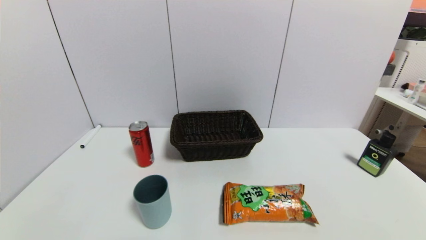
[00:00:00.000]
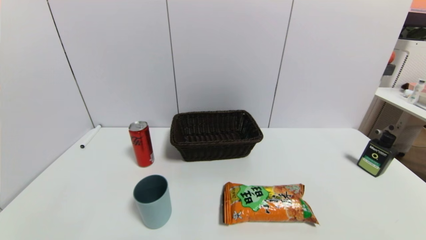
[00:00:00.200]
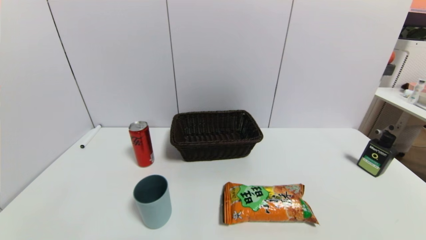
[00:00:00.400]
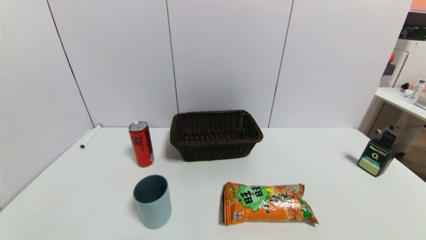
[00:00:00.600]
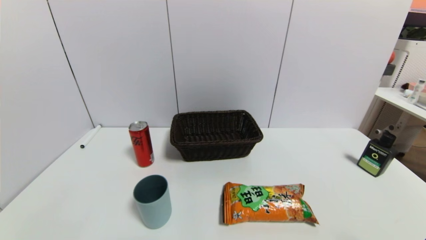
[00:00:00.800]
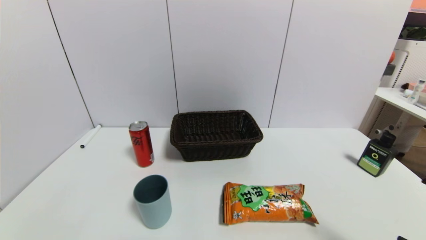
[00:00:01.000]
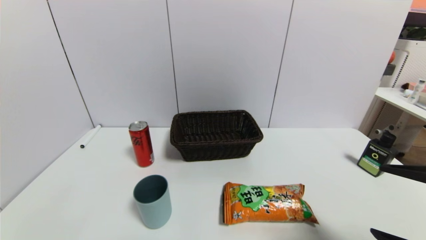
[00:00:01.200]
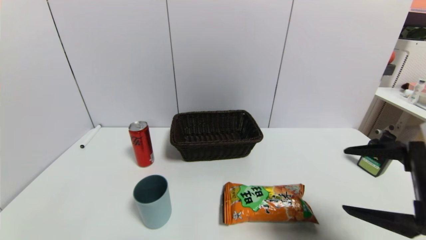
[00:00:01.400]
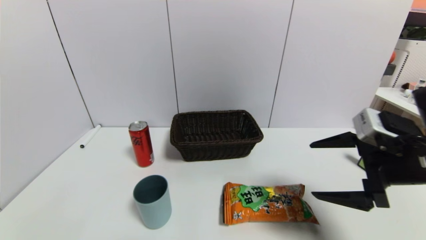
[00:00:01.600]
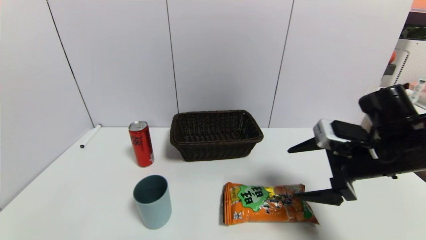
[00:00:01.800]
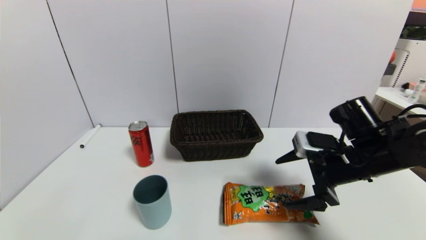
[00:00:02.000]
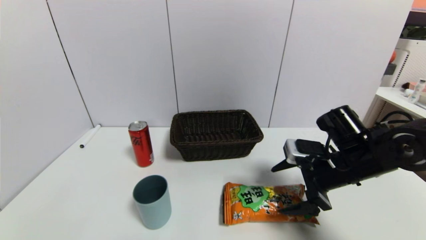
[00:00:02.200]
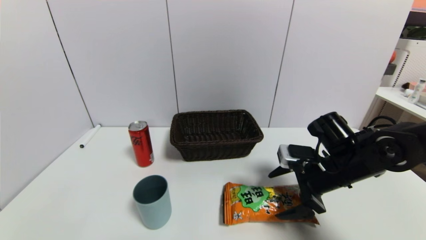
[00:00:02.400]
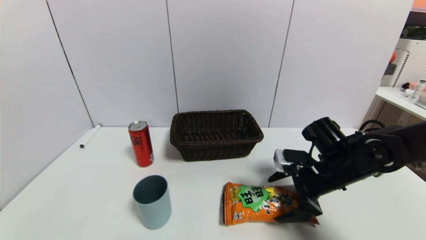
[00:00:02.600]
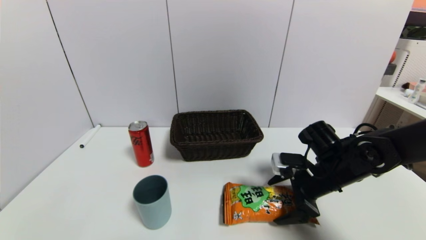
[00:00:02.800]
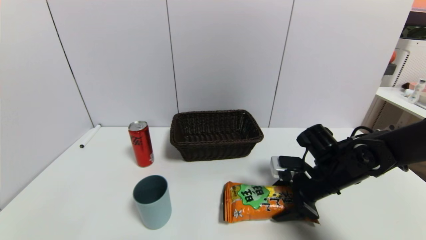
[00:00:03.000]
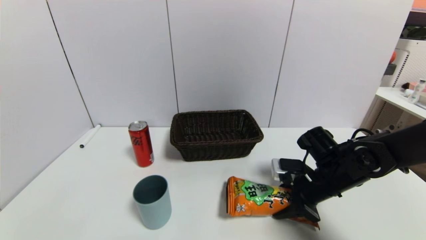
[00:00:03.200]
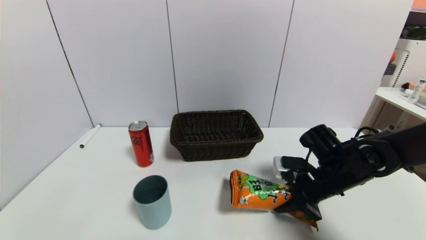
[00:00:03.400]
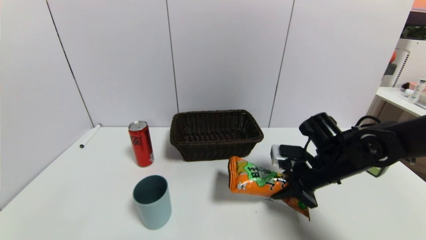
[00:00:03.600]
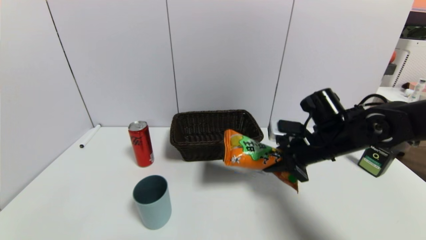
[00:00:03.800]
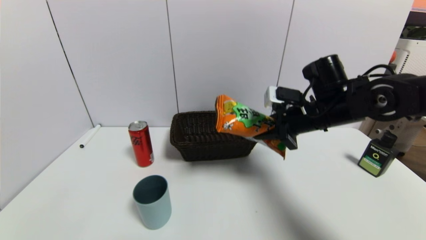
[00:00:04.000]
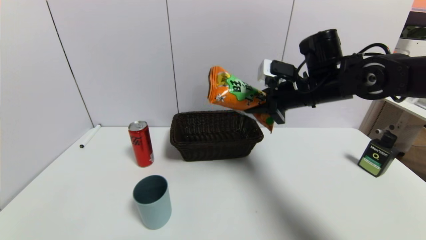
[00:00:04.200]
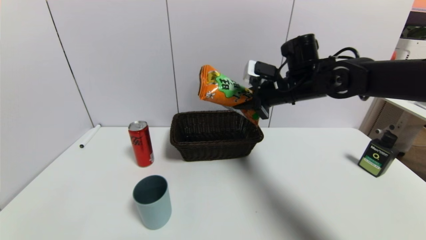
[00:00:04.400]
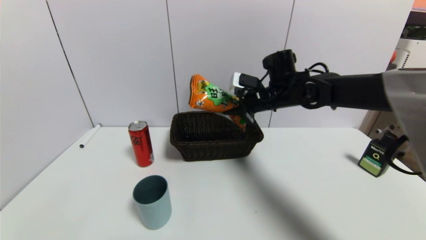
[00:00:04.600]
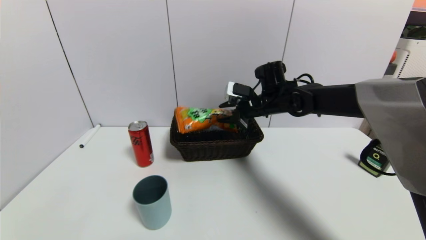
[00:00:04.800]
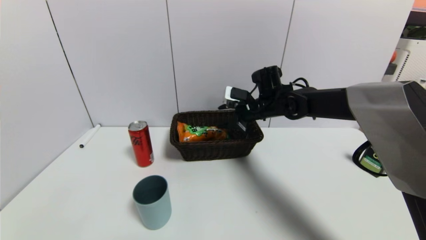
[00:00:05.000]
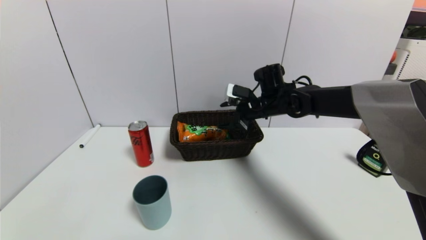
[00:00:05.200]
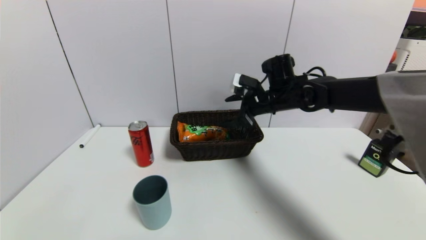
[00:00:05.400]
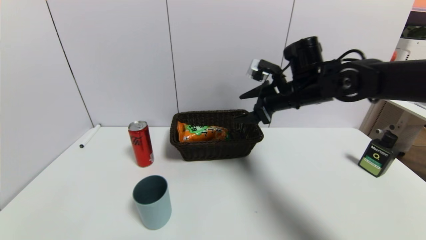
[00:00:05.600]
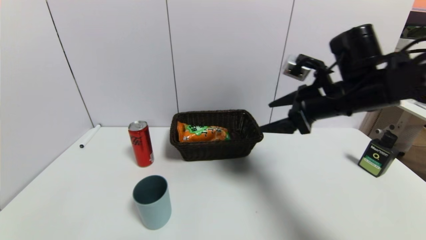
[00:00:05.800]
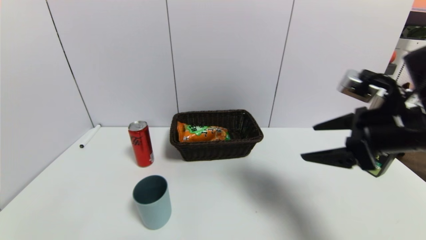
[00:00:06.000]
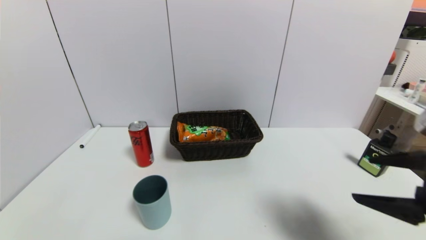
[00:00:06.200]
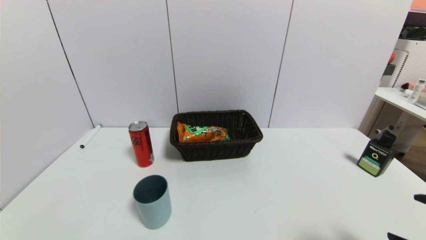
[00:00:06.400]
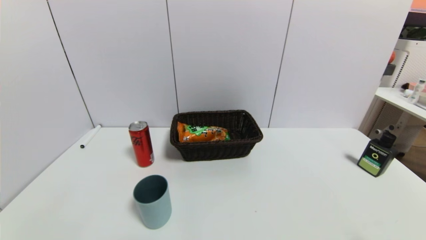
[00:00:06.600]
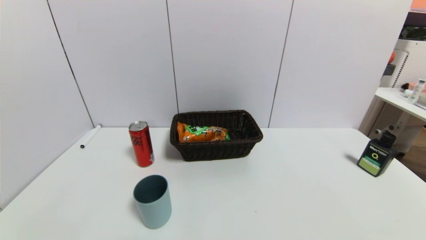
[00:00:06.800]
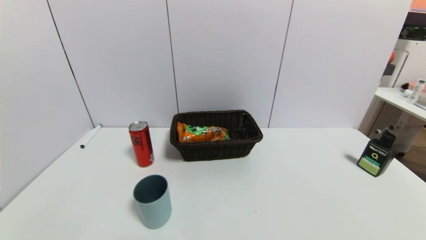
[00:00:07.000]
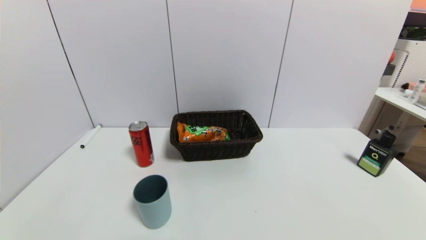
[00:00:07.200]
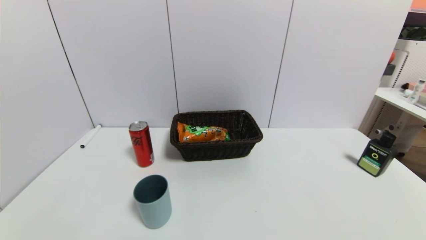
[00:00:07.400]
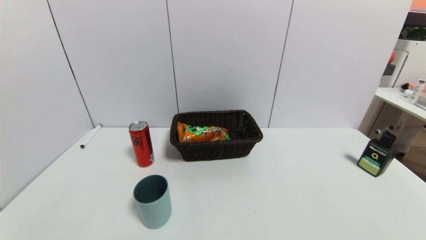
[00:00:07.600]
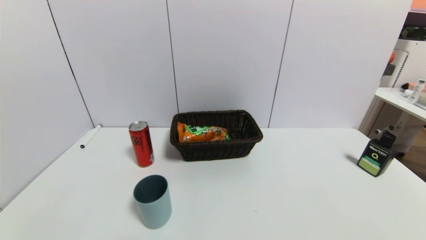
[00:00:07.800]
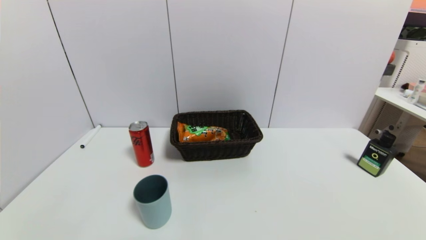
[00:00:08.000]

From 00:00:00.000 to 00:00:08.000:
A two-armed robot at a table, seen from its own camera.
Task of the whole recording: use a gripper to pick the target object and place on the brown basket.
Step, from 00:00:00.000 to 00:00:03.400: Grasp the cookie with the right gripper.
Step, from 00:00:03.600 to 00:00:05.400: Place the cookie into the basket with the right gripper.
From 00:00:00.000 to 00:00:01.600: The right gripper shifts some 25 cm forward and upward.
From 00:00:01.600 to 00:00:03.200: The right gripper is displaced downward and forward by roughly 15 cm, and closes its fingers.
From 00:00:03.200 to 00:00:04.800: The right gripper is displaced forward, to the left and upward by roughly 20 cm.
From 00:00:04.800 to 00:00:06.400: The right gripper heads backward and to the right, covering some 40 cm, and opens up.
